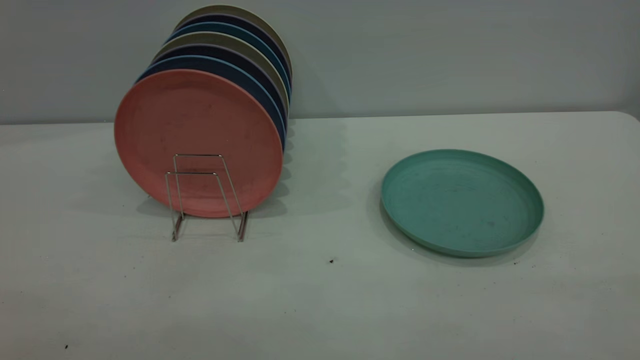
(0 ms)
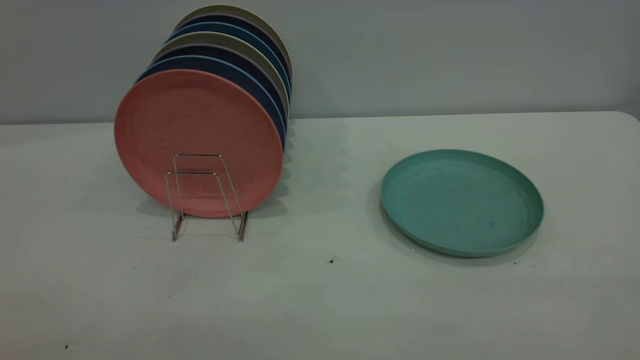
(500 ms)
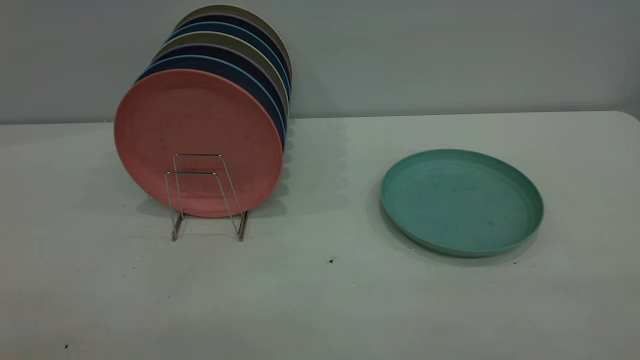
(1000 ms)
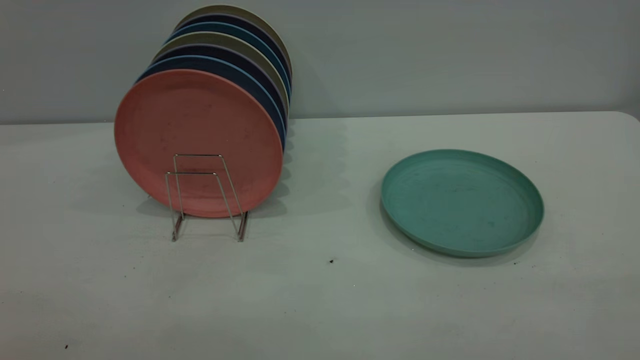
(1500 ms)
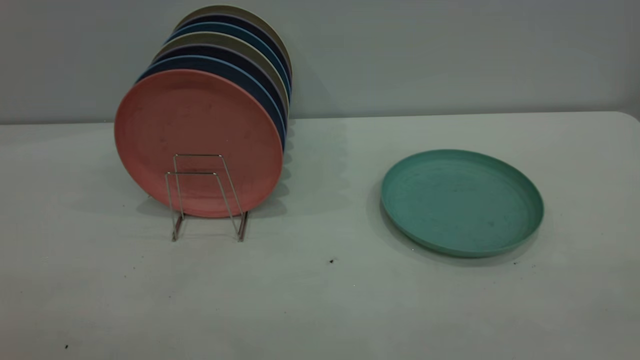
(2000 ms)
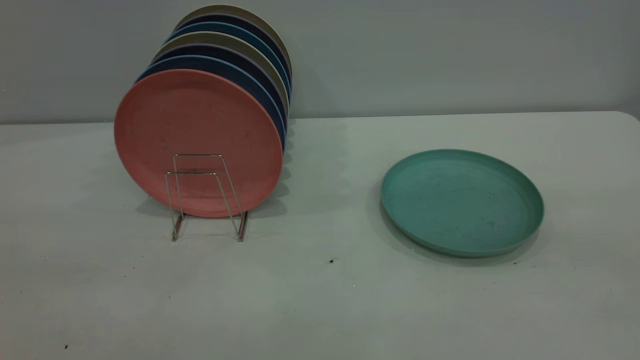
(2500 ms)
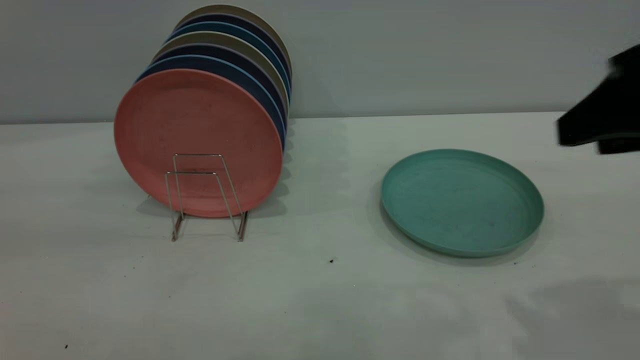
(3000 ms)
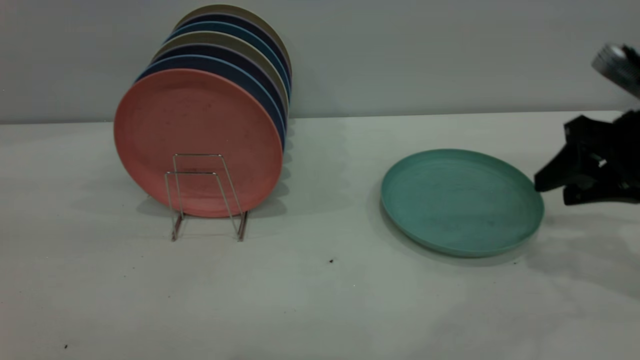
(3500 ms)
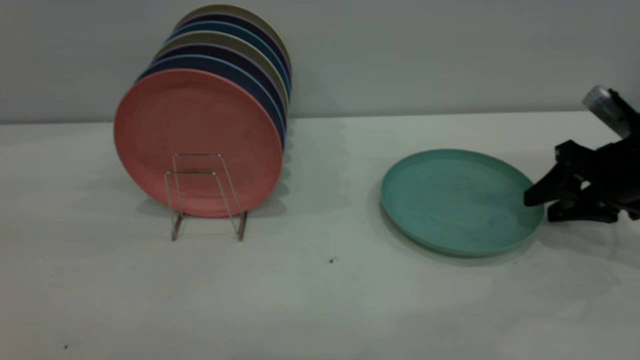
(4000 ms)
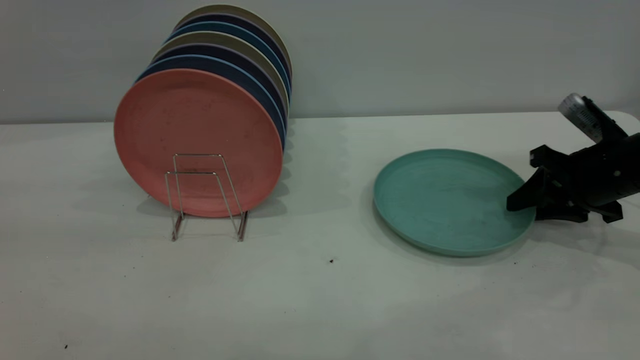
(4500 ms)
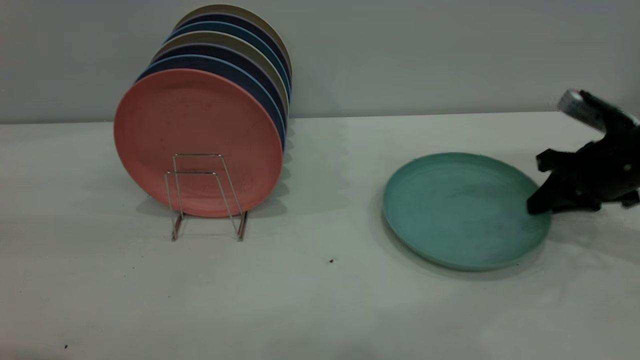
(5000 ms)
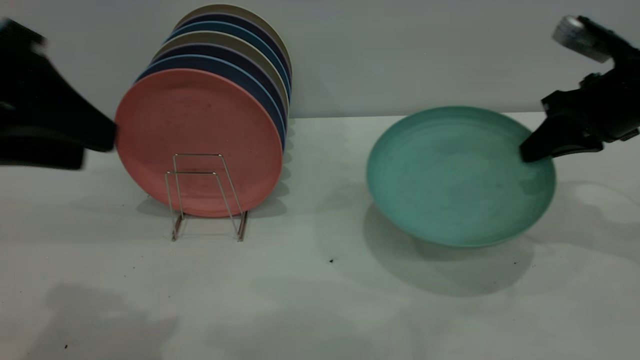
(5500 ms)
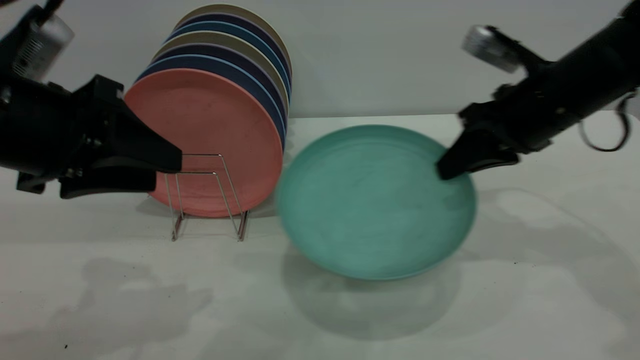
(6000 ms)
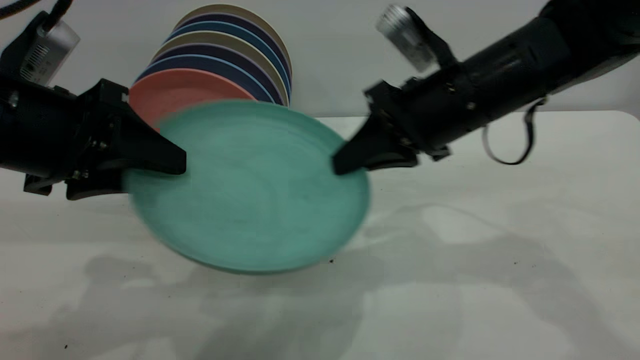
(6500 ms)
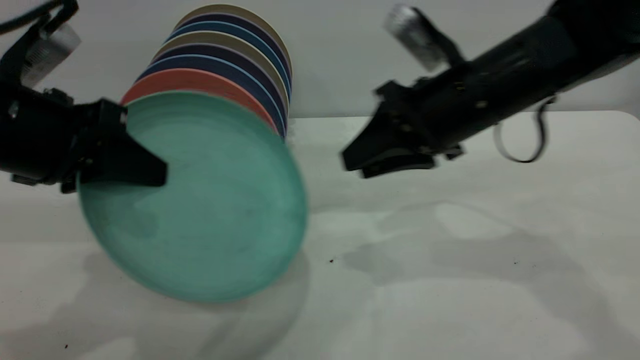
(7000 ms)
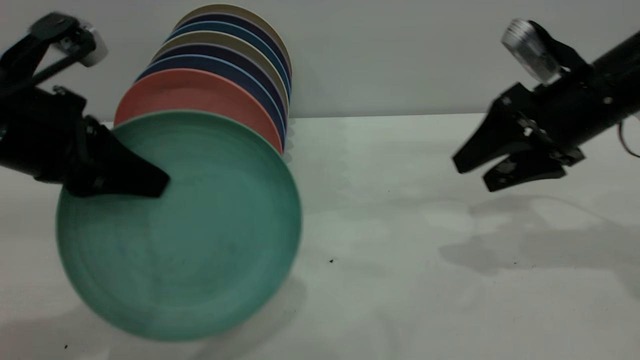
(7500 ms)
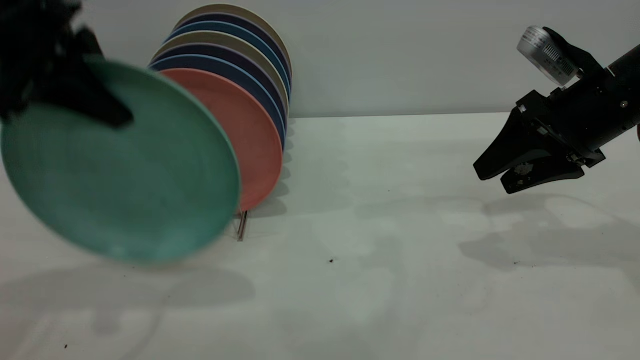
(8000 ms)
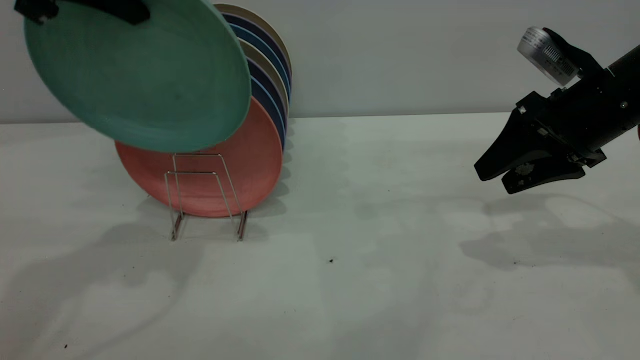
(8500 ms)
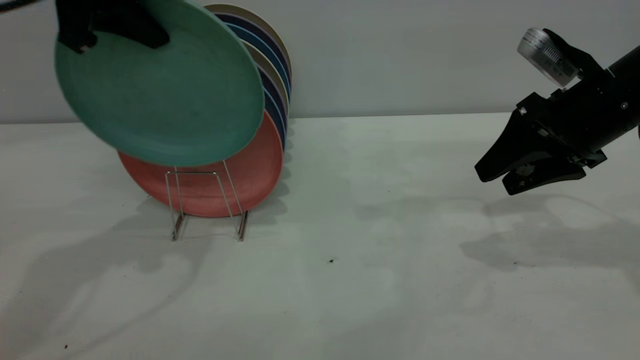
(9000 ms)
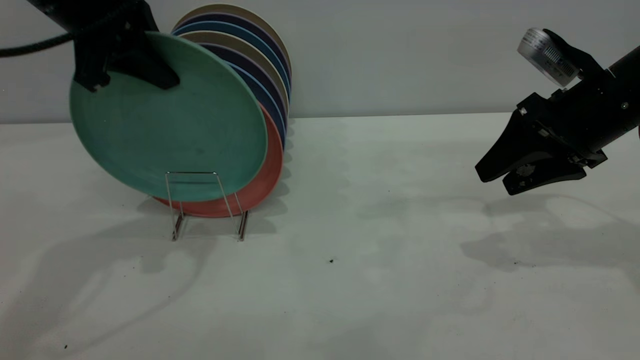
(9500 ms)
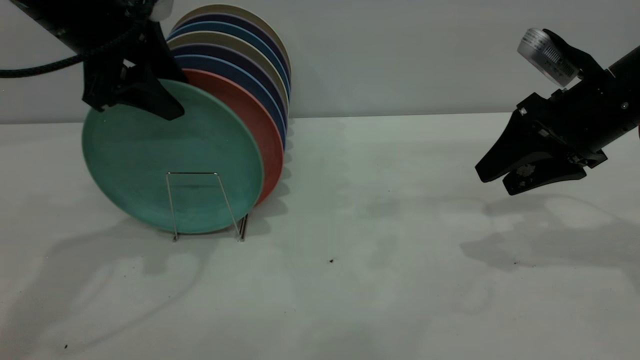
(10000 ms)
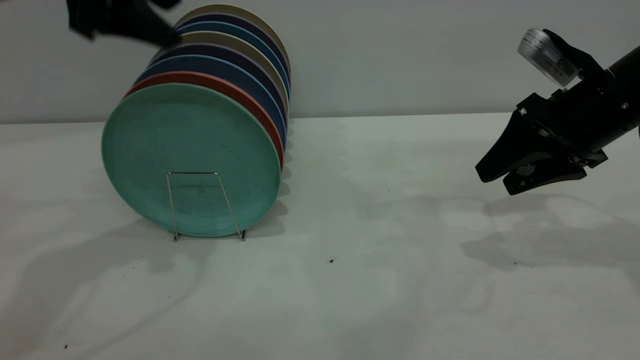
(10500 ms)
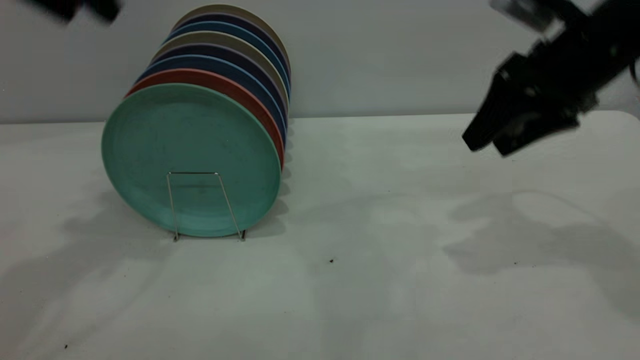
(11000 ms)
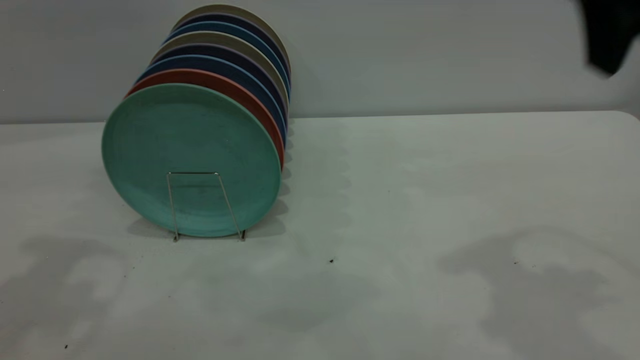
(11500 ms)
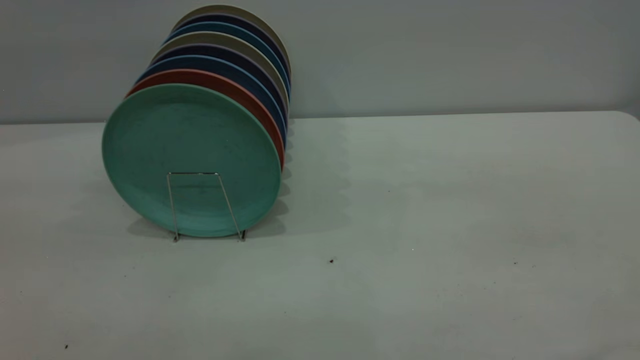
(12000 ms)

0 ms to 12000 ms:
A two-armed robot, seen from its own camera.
Task of the whole recording: the right gripper grasp the green plate, the right gripper pass the green plate to the left gripper, and the left gripper place the green plate on the plate rack.
Step, 0 ms to 5000 ms: Pick up the plate with the right gripper.
Step, 5500 ms to 6500 ms: Pass the plate from the right gripper to the left gripper.
Step, 7000 ms to 10000 ms: Place the plate on the shelf.
2000 ms to 4000 ms: The right gripper travels forward and downward by some 50 cm.
4000 ms to 6000 ms: The left gripper goes approximately 20 cm downward and forward. Meanwhile the right gripper shifts about 15 cm to the left and upward, and closes.
6000 ms to 8000 ms: The right gripper moves to the right, about 5 cm, and opens up. Meanwhile the left gripper travels upward and forward by approximately 10 cm, and closes.
8000 ms to 10000 ms: The left gripper goes approximately 5 cm forward, travels upward and back again, roughly 5 cm each way, and opens.
10000 ms to 12000 ms: The two grippers go about 30 cm backward and upward.
